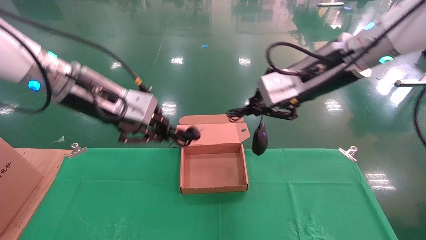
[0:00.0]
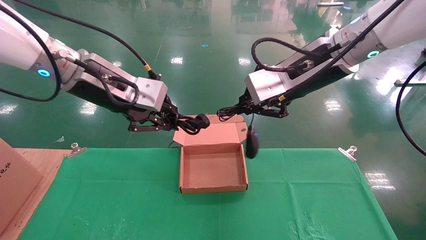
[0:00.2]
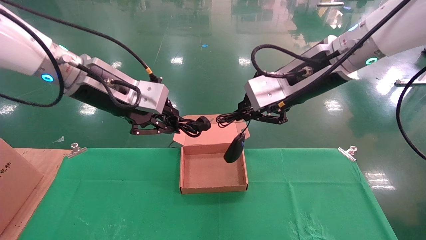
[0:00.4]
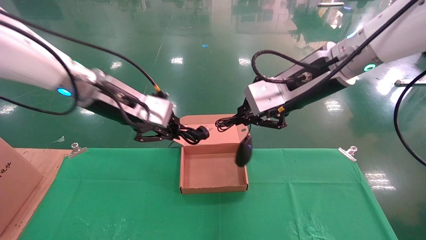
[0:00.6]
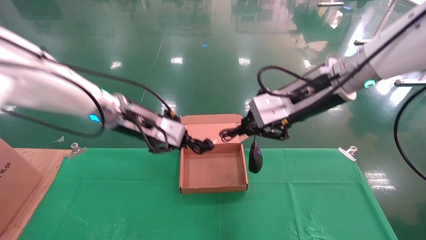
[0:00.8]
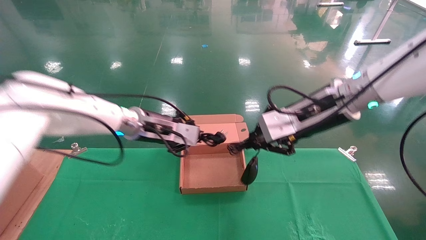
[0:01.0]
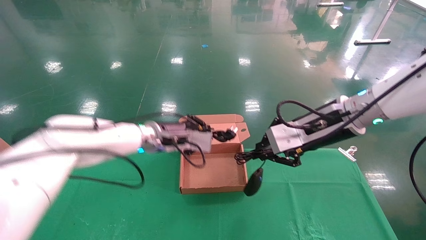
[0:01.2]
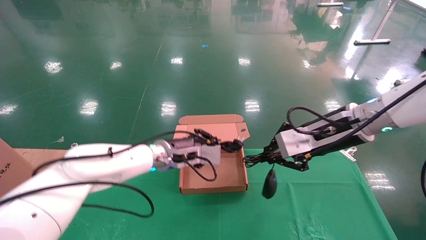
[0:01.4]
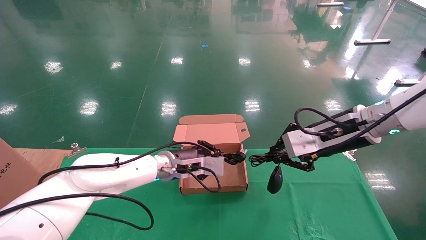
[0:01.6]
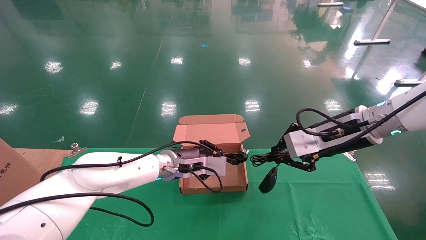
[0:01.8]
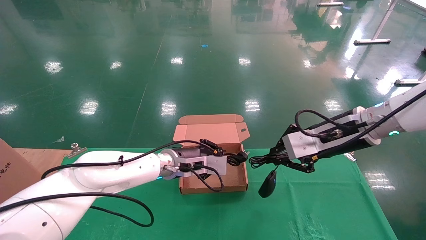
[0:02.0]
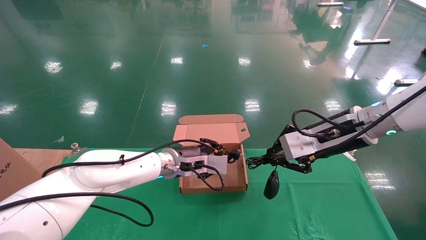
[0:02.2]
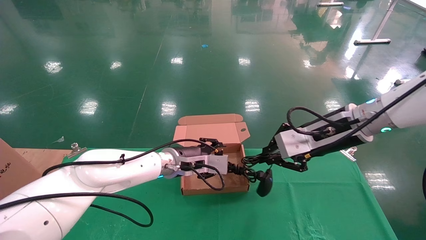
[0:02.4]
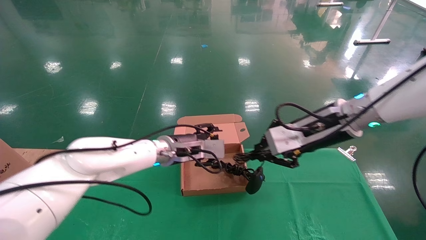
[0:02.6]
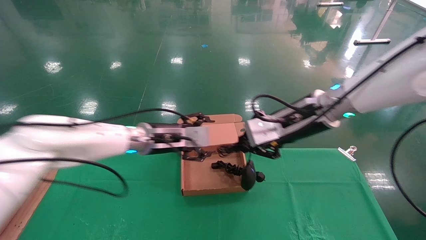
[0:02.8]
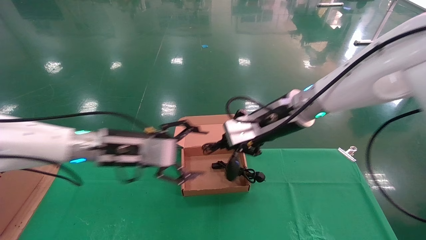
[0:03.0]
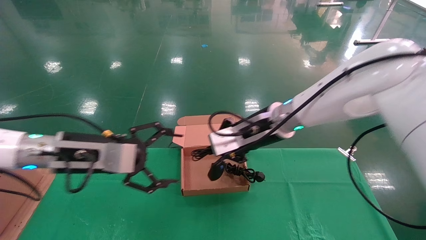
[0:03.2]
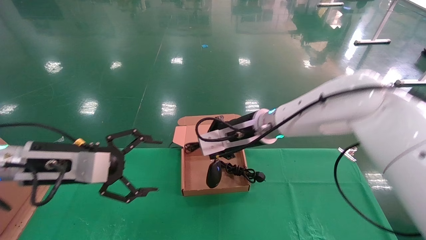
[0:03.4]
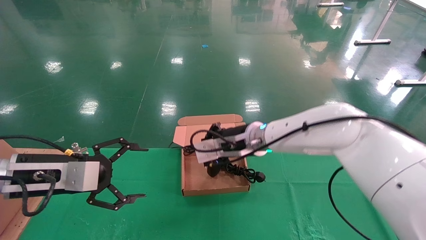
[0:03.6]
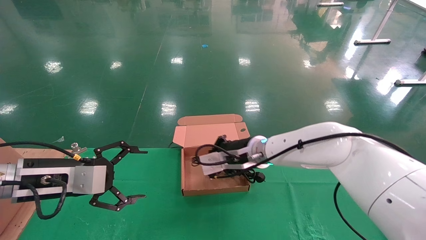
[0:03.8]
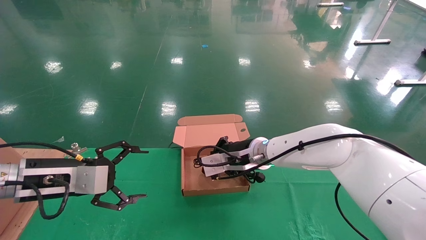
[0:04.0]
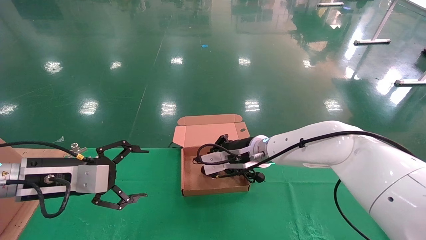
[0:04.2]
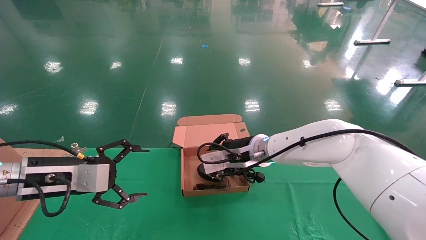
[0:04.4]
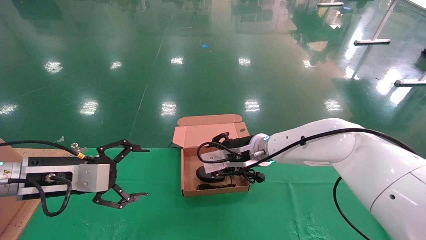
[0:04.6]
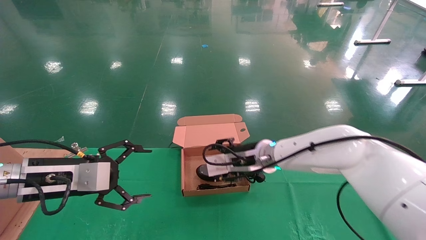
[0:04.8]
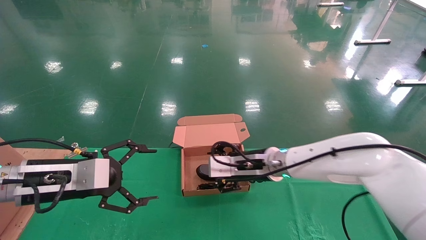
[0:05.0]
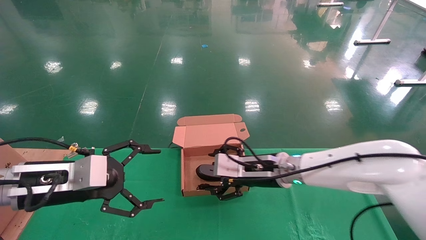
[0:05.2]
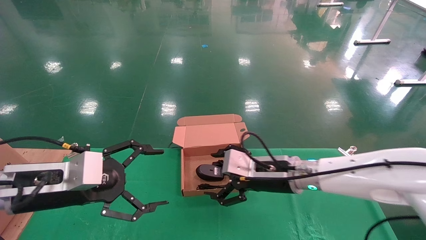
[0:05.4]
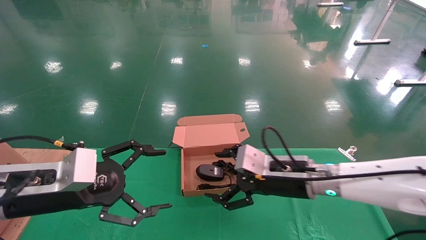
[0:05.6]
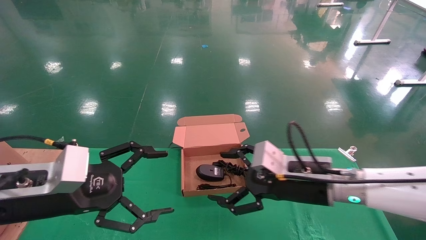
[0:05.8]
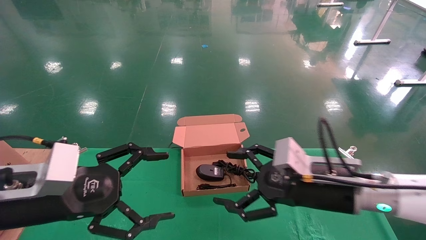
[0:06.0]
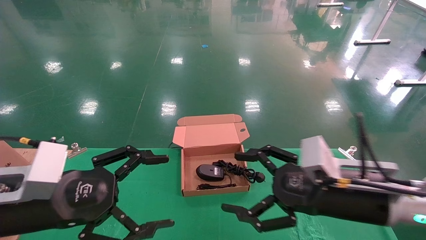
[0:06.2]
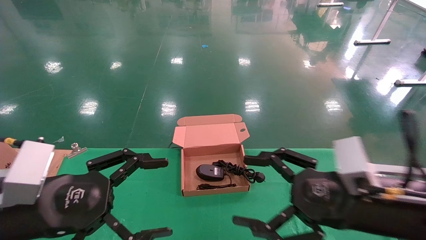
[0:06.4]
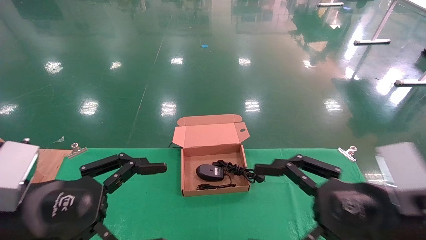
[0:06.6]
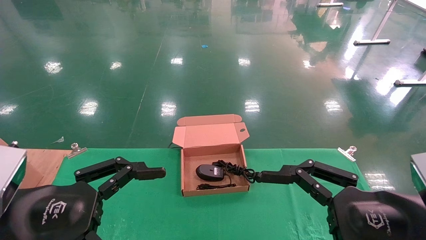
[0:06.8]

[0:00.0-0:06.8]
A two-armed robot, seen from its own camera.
Step, 0:00.0 to 0:04.6: Place the mouse and power cord into the box.
0:00.0 to 0:01.4: The right gripper moves downward, about 10 cm. Meanwhile the left gripper moves downward, forward and to the right, approximately 25 cm.
0:01.4 to 0:02.8: The left gripper ends up roughly 5 cm from where it was, and opens up, while the right gripper goes roughly 5 cm to the left.
0:02.8 to 0:04.0: The right gripper travels downward, to the left and forward by roughly 15 cm, while the left gripper is displaced to the left and backward by some 20 cm.
0:04.0 to 0:05.4: The right gripper heads backward and to the right, covering approximately 10 cm, and opens up. Meanwhile the left gripper ends up some 5 cm from where it was.
0:05.4 to 0:06.8: The left gripper travels backward by approximately 10 cm. The right gripper is displaced backward and to the right by roughly 25 cm.
